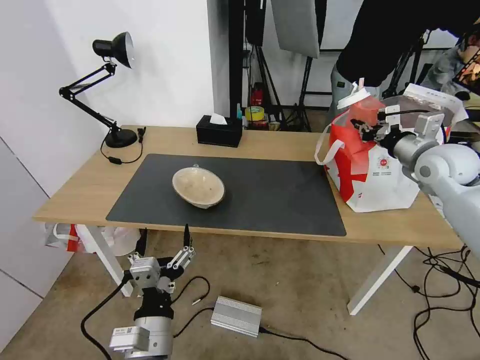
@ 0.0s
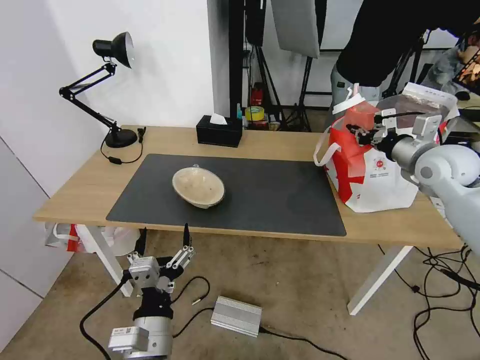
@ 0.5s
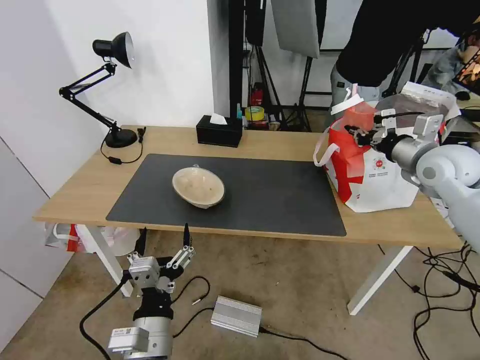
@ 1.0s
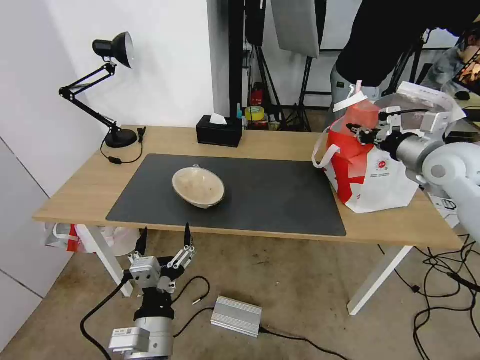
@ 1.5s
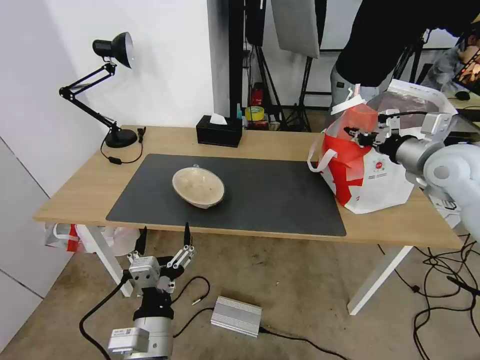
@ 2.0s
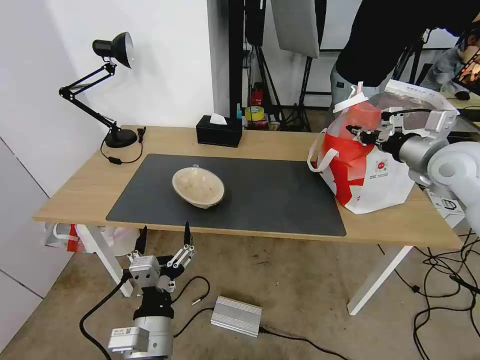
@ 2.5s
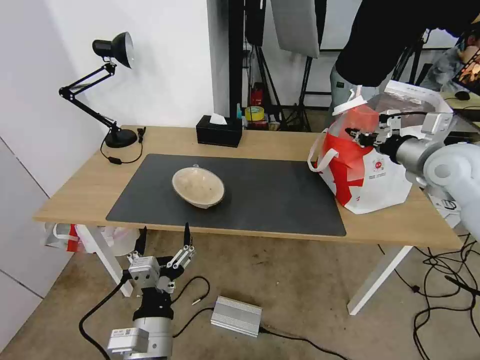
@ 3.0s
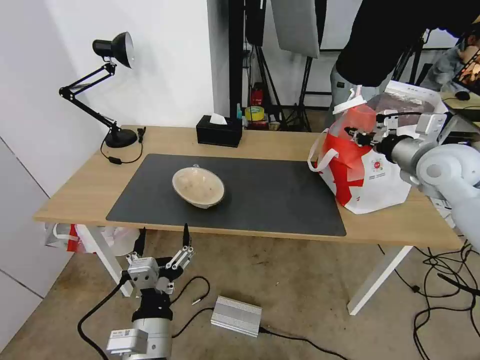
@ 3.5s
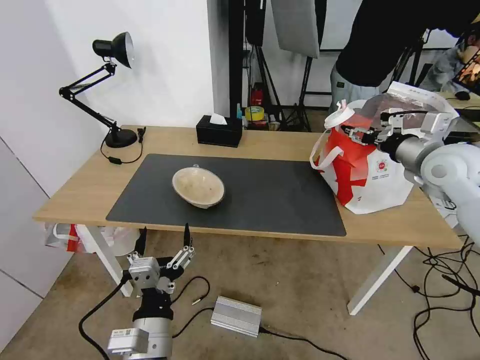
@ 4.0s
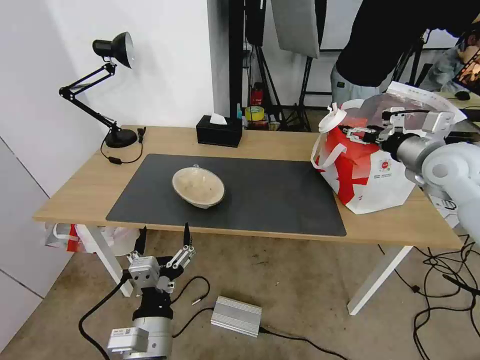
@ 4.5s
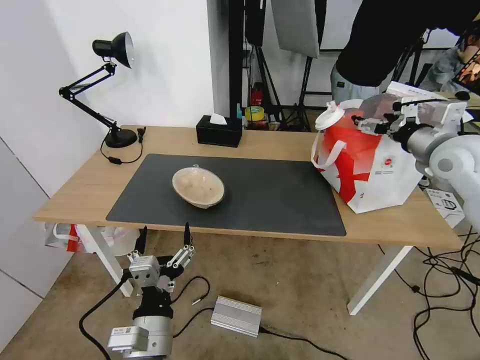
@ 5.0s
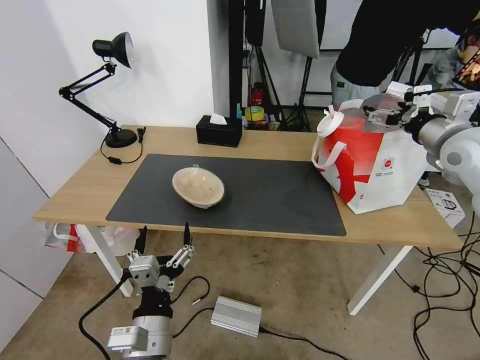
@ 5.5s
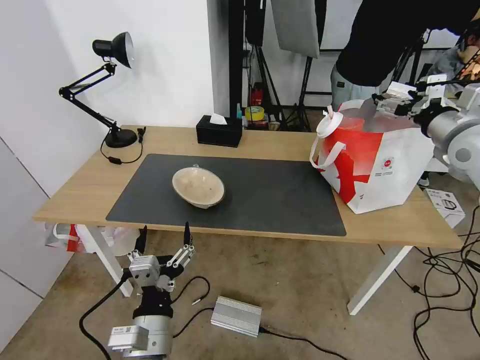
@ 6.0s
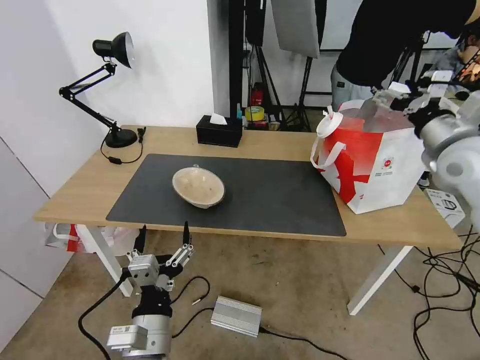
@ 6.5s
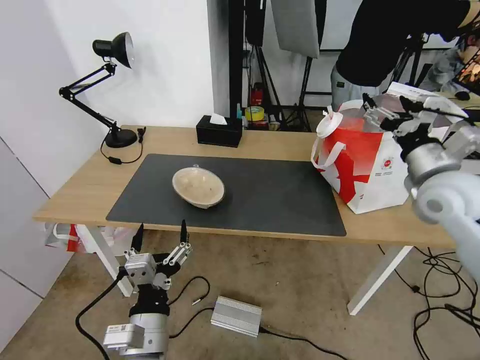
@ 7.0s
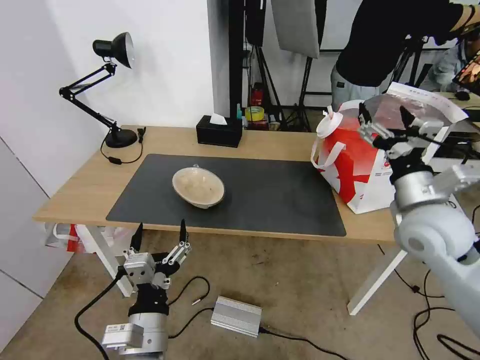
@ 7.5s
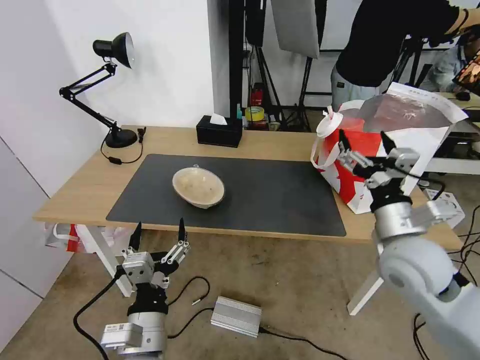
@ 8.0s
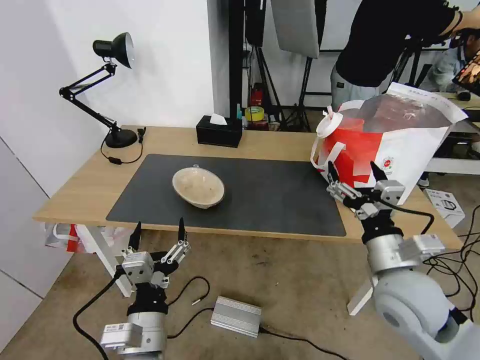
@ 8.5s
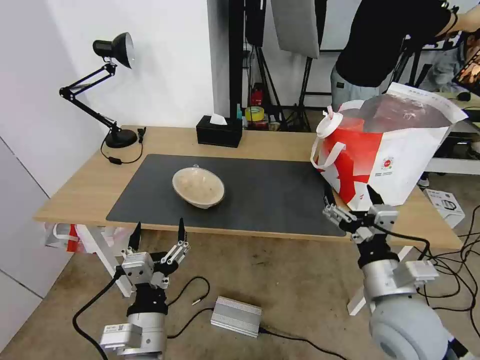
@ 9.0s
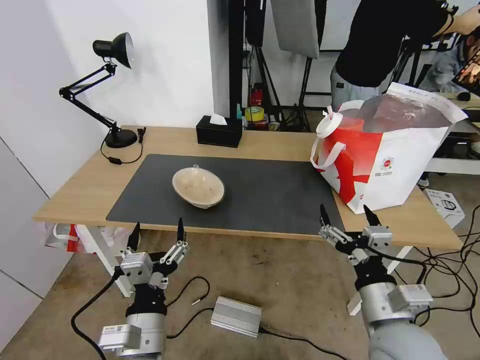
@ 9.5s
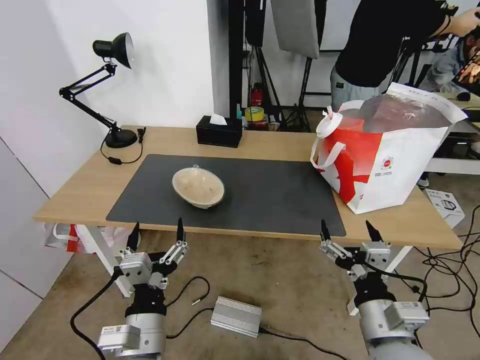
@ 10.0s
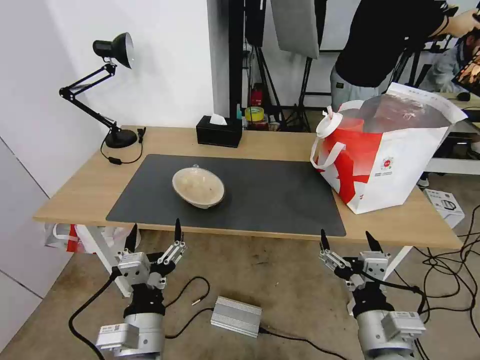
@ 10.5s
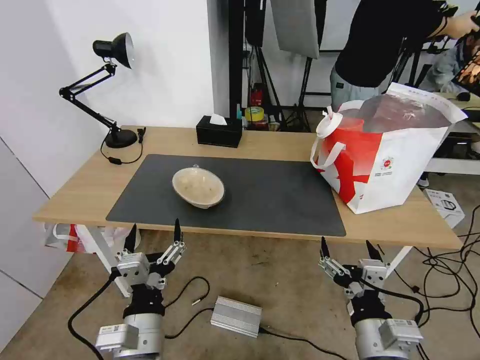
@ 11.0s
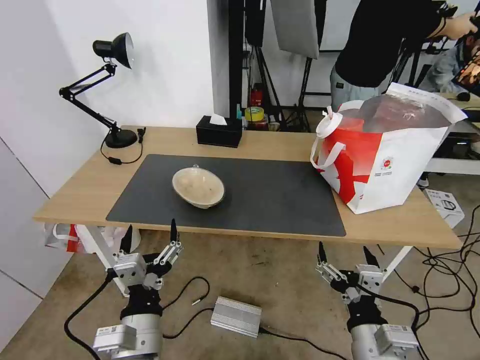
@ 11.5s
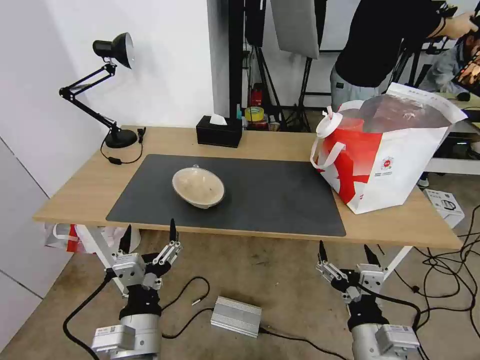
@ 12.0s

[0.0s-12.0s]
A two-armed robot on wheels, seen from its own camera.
Task of the whole recording: Pick up the trash from the table and place it into the takeout bag.
0.0s to 2.0s: There are only small adjustments of the grippers.
2.0s to 4.0s: The right gripper opens its fingers.
4.0s to 6.0s: The right gripper ends up approximately 5 cm from where it was, and opens.
6.0s to 8.0s: The right gripper goes roughly 25 cm backward, to the left and downward.
8.0s to 10.0s: The right gripper moves backward and downward, some 15 cm.
10.0s to 12.0s: The grippers make only small movements.

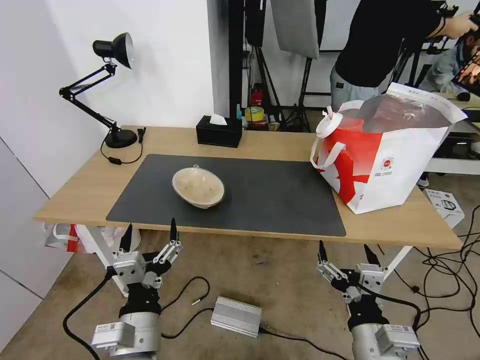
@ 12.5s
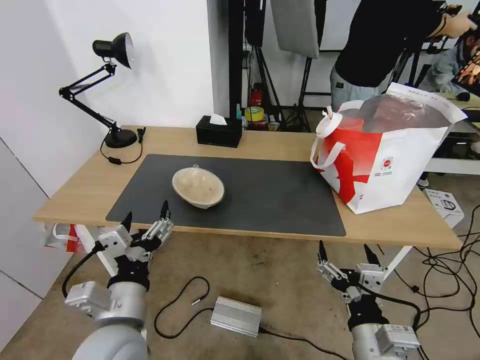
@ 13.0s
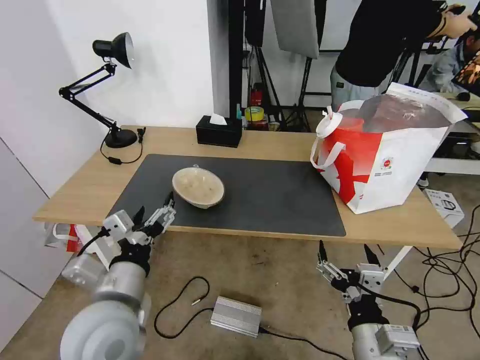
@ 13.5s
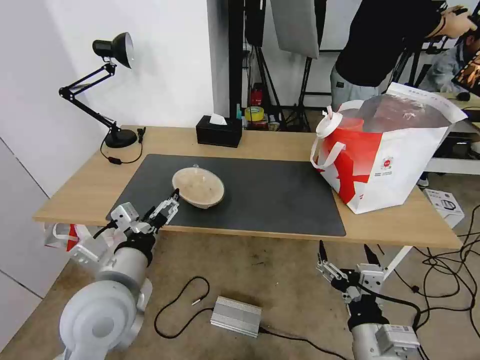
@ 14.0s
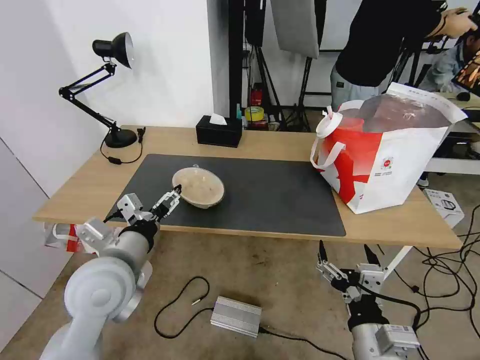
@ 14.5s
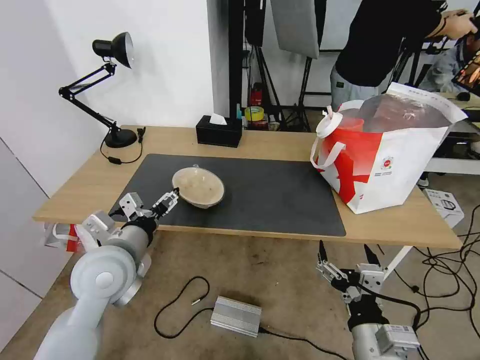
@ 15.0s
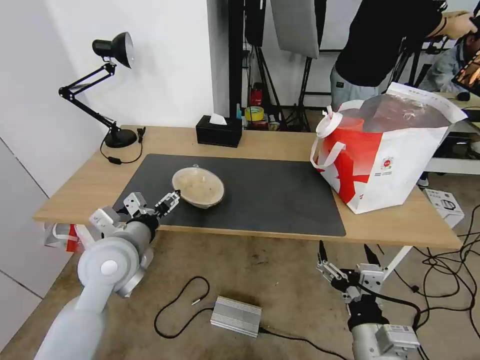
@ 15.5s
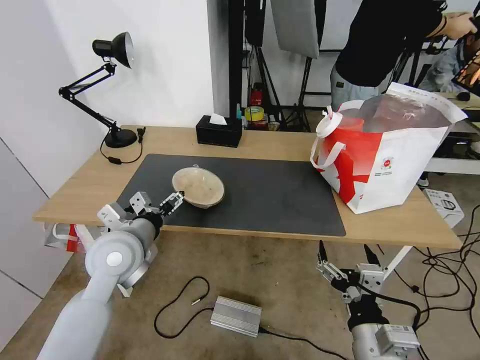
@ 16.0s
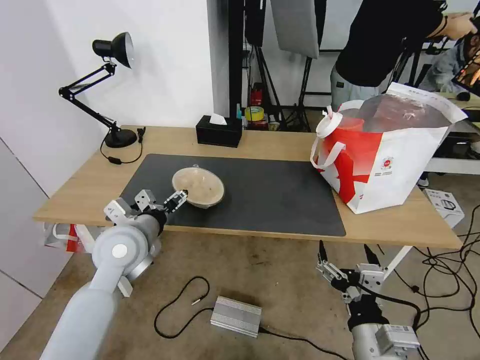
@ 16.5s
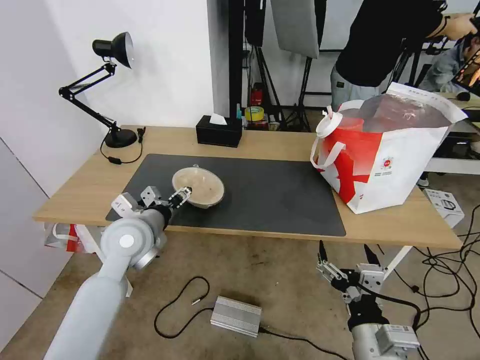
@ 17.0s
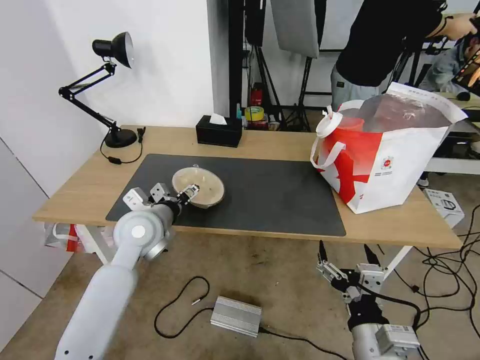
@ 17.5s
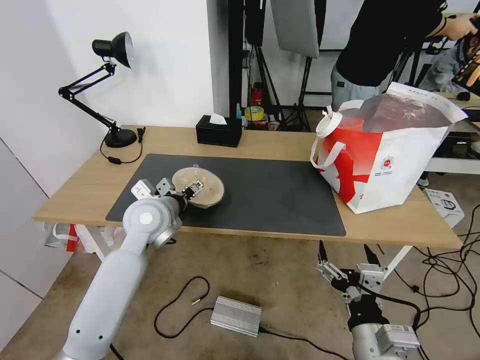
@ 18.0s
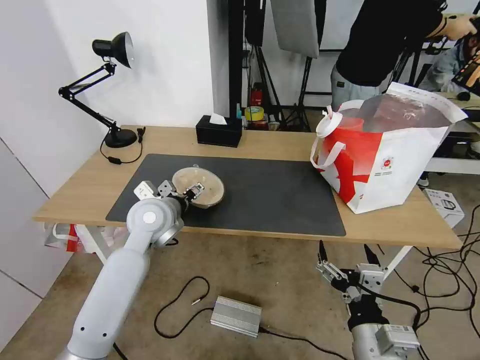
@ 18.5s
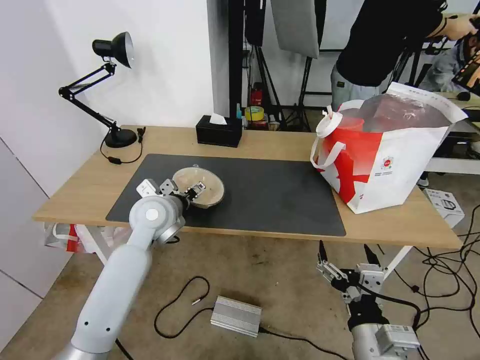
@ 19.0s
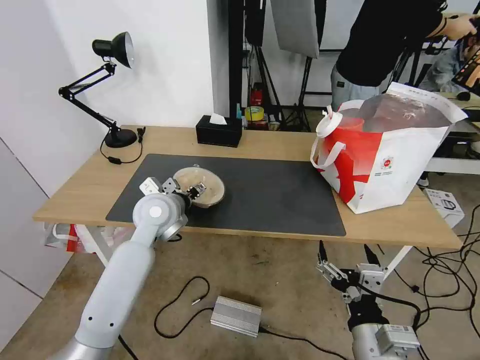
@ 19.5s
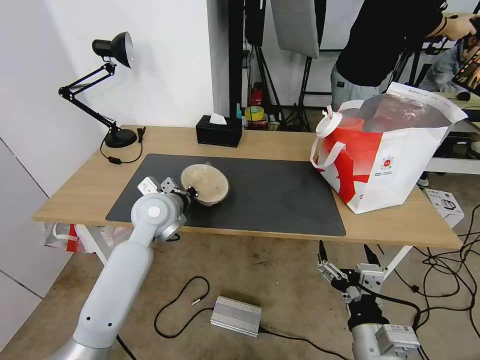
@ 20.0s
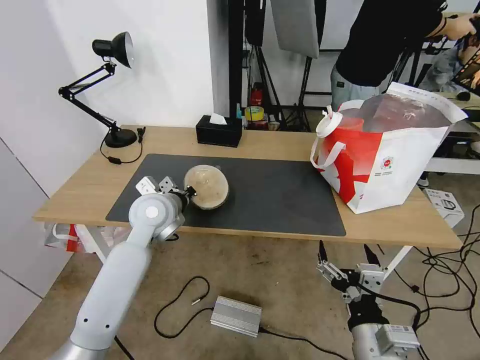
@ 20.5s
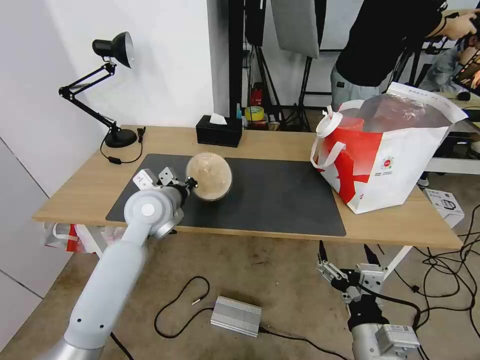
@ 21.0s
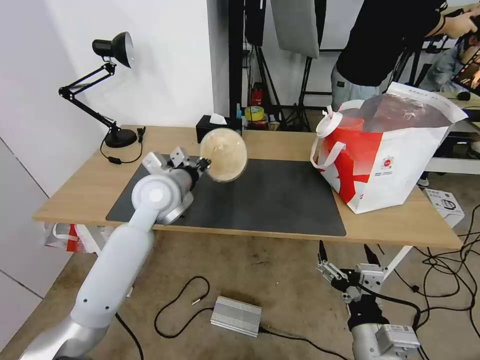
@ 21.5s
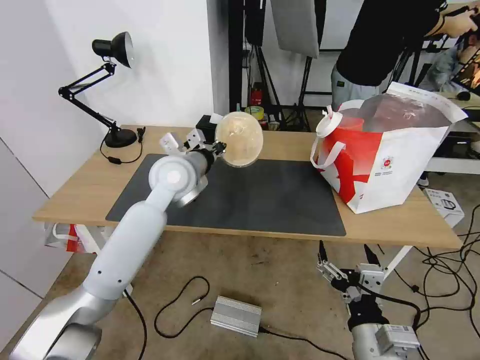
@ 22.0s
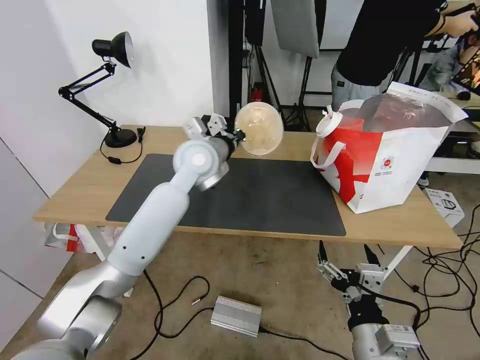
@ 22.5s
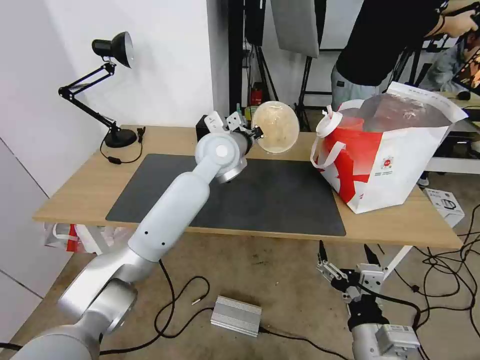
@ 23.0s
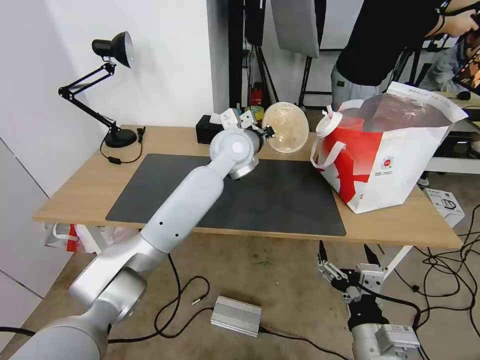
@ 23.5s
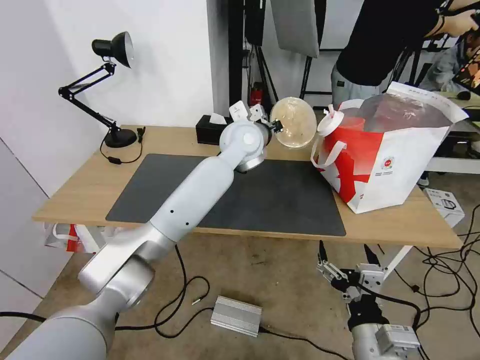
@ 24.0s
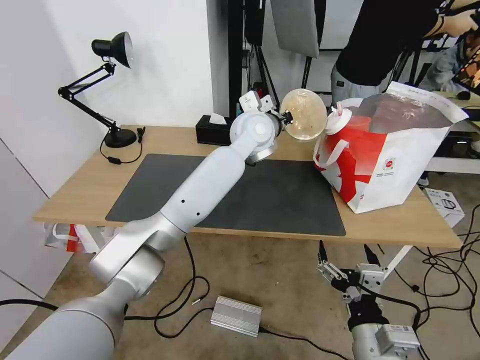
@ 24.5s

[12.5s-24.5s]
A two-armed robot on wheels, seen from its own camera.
Task of the whole recording: Pick up the trash from the table and place it into the takeout bag.
12.5s to 14.5s: The left gripper is displaced forward, upward and to the left by some 15 cm.
14.5s to 16.5s: The left gripper goes approximately 10 cm forward.
16.5s to 18.5s: The left gripper is displaced forward by about 5 cm.
18.5s to 20.5s: The left gripper closes its fingers.
20.5s to 22.5s: The left gripper shifts about 15 cm to the right, upward and forward.
22.5s to 24.5s: The left gripper heads to the right and forward, covering roughly 15 cm.

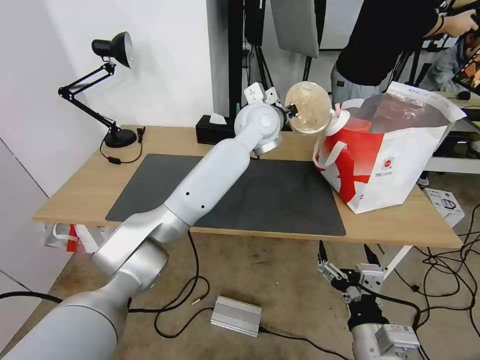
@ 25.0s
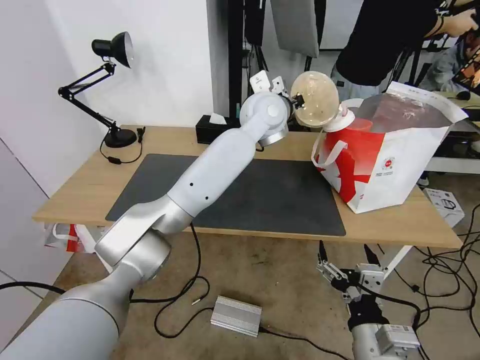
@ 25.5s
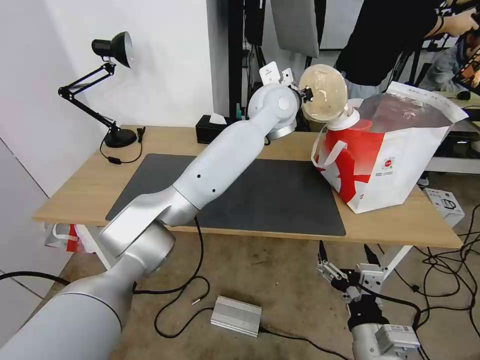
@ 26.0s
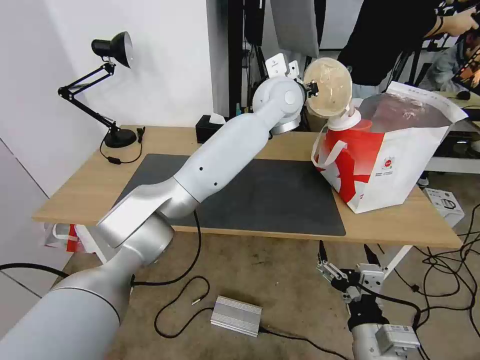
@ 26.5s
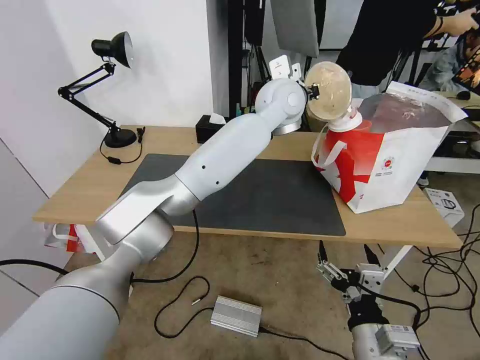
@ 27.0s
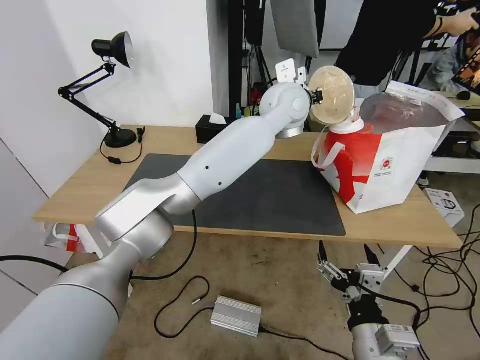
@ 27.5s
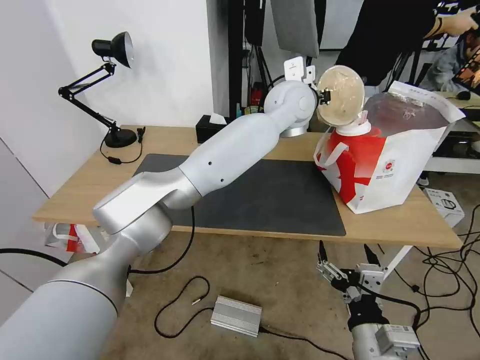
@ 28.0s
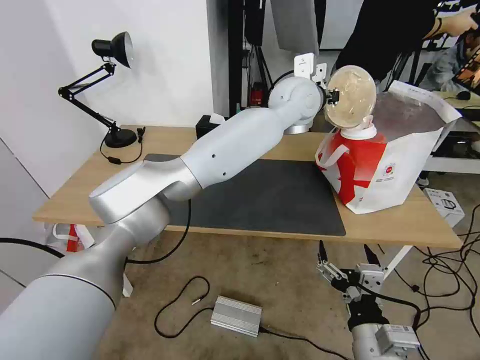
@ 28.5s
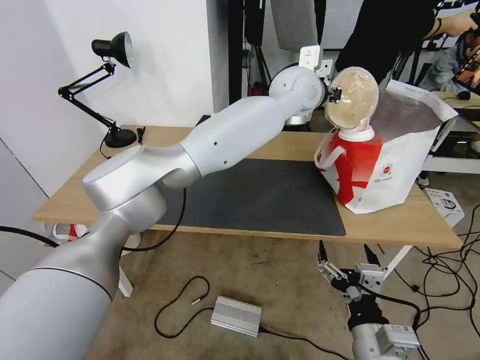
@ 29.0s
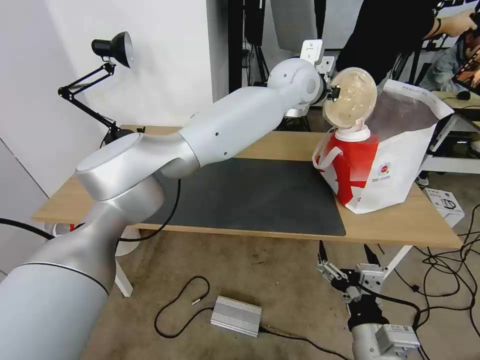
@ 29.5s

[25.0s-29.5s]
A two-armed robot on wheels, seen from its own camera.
Task of the whole recording: Pick up the trash from the table and place it into the takeout bag.
25.0s to 27.0s: The left gripper ends up about 5 cm from where it was.
